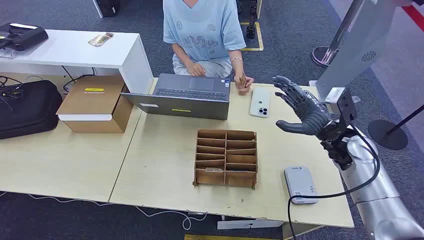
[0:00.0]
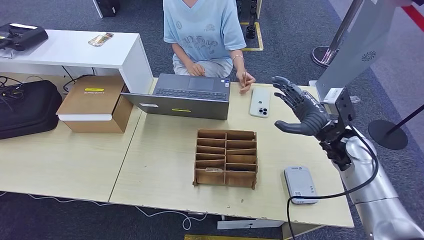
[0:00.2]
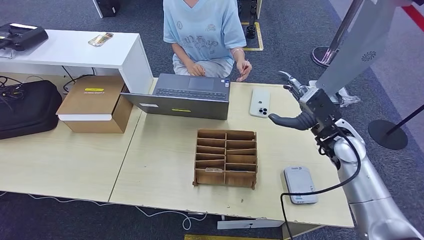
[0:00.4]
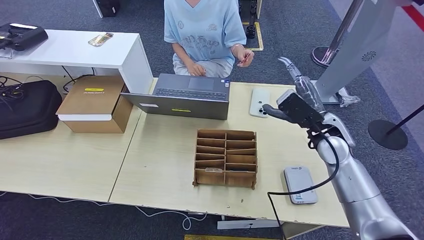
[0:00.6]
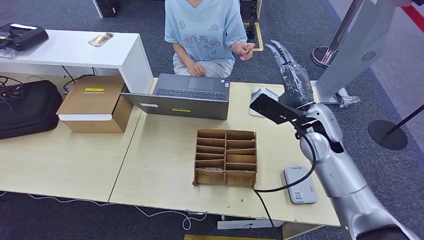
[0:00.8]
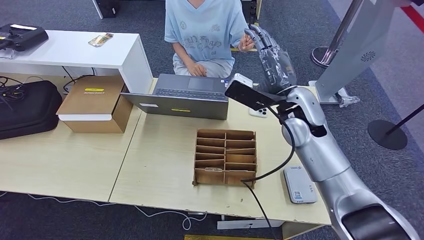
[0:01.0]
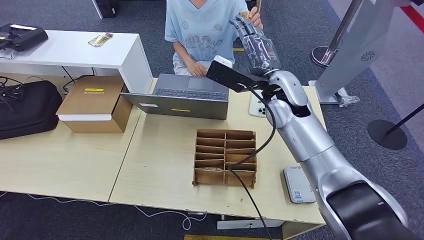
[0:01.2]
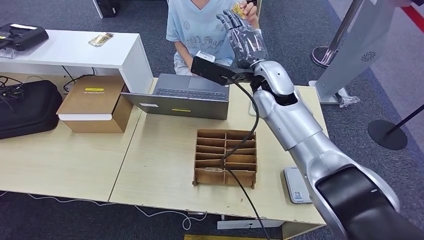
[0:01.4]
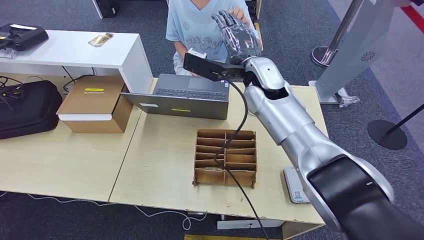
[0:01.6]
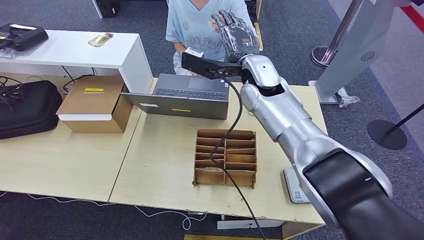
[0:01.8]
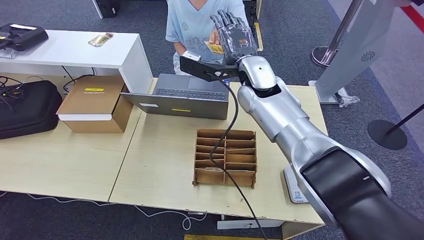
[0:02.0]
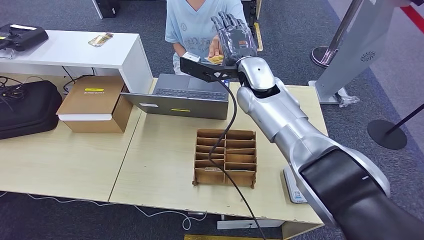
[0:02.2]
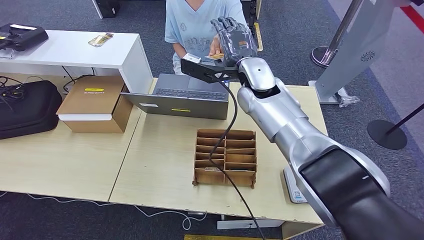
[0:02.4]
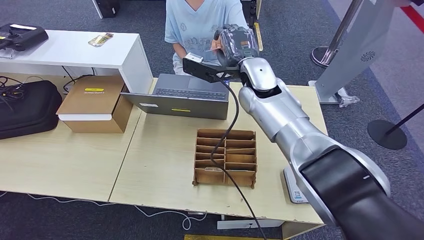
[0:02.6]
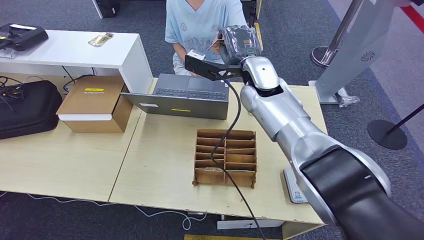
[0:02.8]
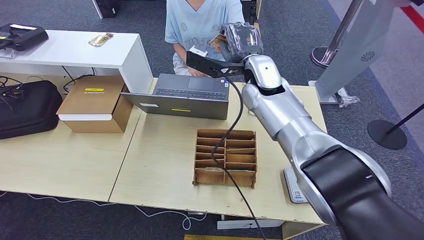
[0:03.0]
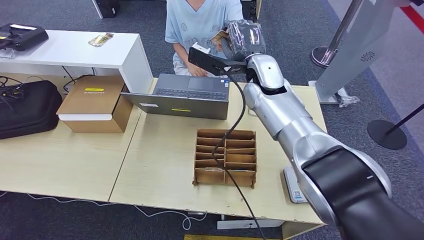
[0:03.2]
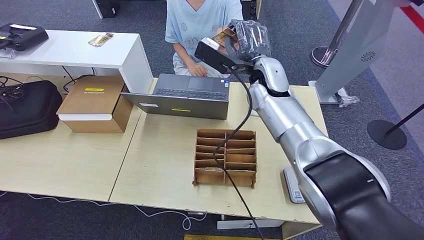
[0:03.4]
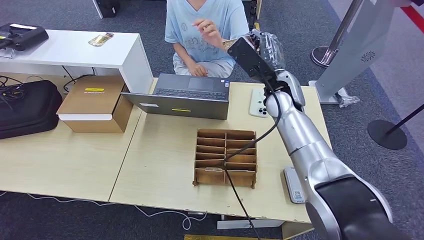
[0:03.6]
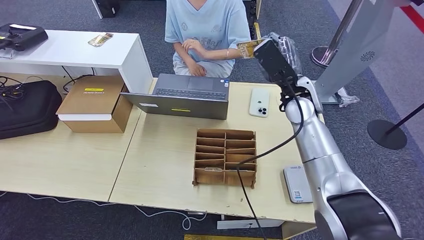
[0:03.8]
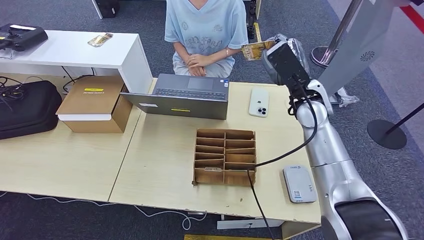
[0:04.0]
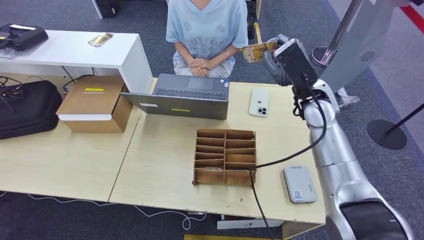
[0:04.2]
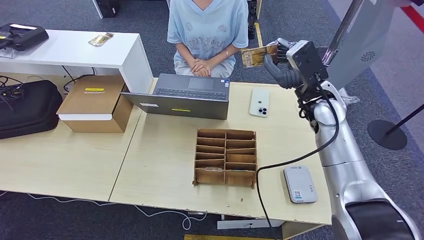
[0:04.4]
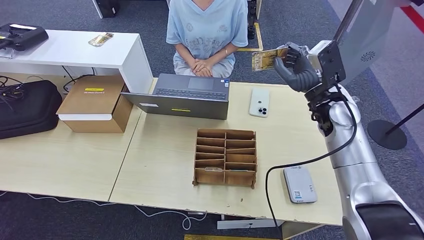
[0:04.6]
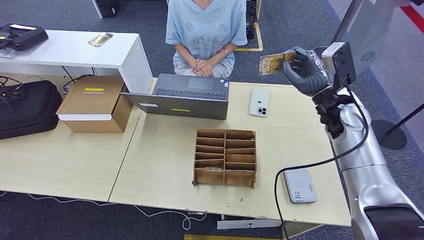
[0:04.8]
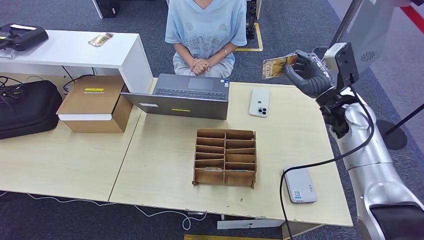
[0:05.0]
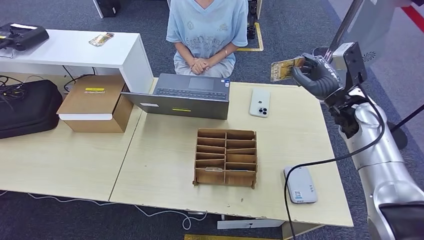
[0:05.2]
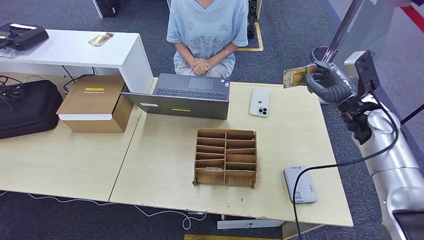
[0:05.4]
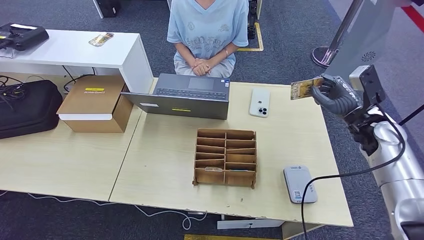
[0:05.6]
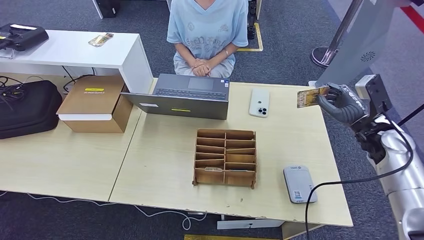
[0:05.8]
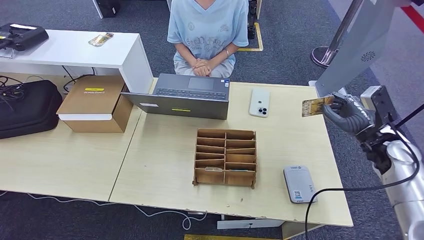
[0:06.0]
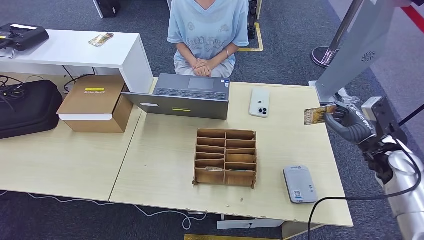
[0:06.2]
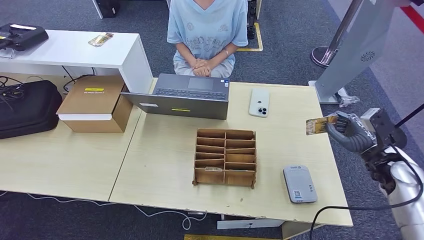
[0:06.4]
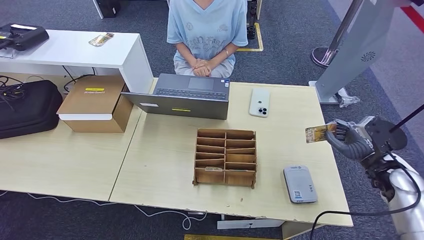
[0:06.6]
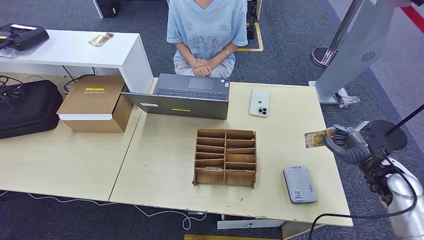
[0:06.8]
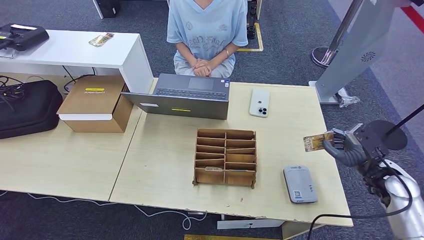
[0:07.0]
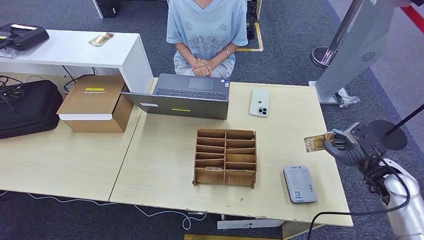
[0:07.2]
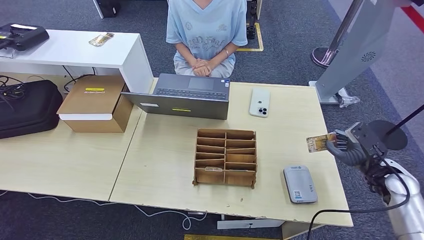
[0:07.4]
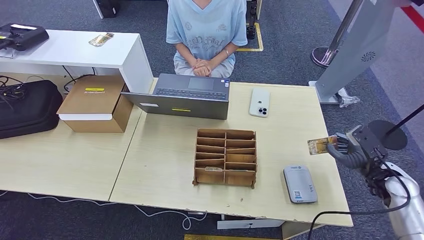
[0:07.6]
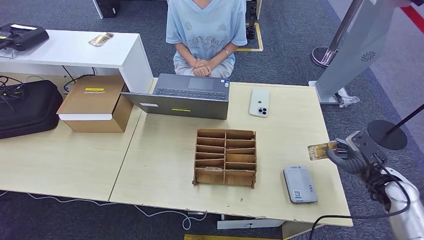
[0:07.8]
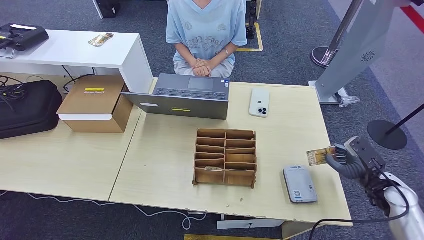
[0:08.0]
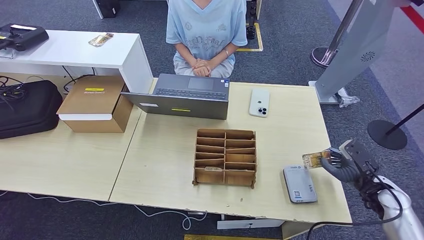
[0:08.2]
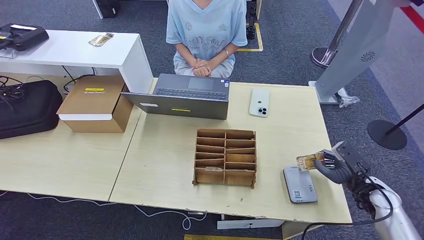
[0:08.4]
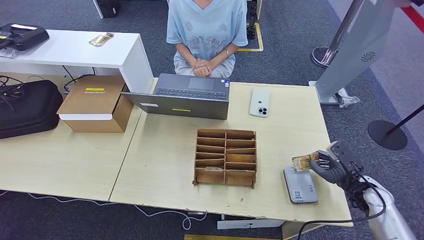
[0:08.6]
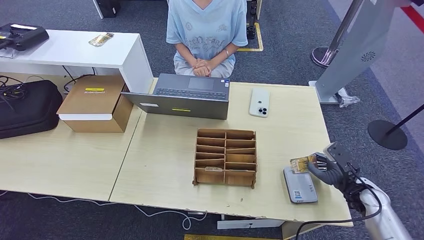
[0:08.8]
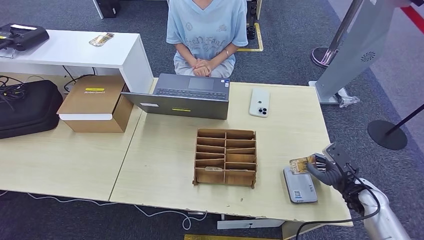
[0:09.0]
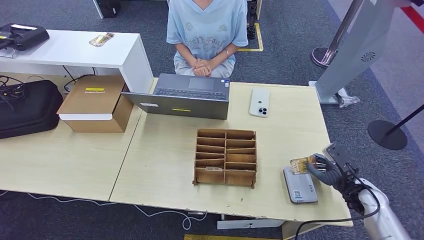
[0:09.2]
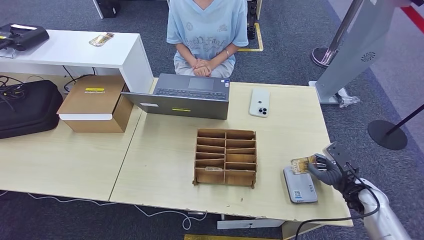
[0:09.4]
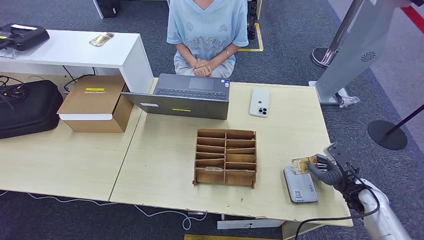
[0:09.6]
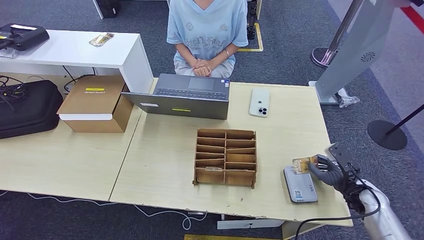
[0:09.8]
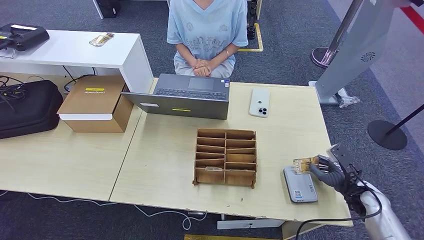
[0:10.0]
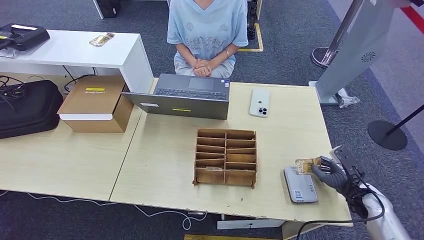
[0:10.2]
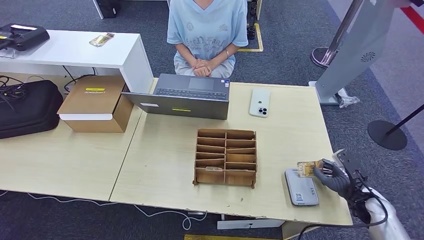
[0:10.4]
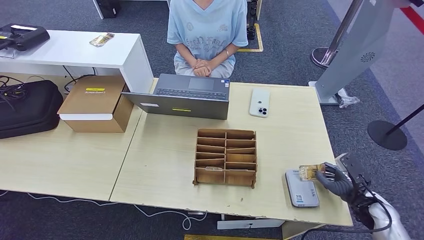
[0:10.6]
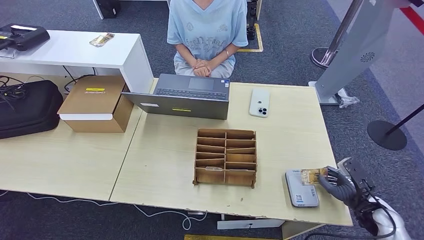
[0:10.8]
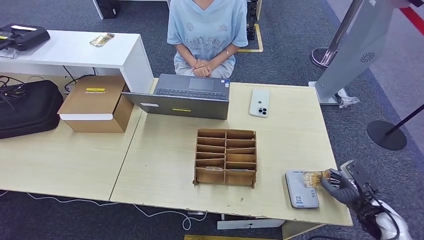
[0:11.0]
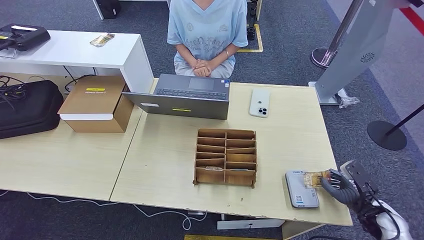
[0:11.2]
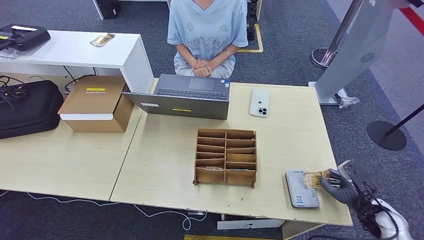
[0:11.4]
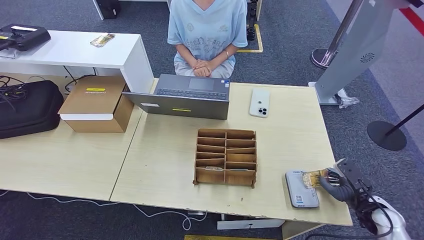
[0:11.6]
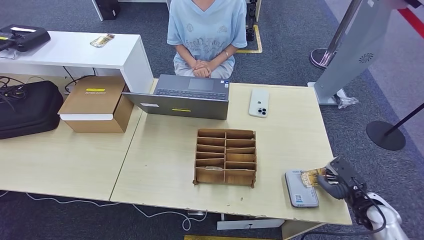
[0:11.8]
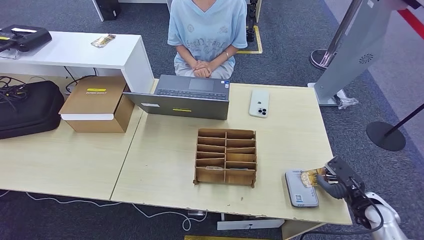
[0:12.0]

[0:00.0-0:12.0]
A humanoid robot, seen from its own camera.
Step, 0:00.0 to 0:04.0: Take the ID card from the person's hand.
Step, 0:04.2 to 0:09.6: Place the ID card on the card reader.
0:01.6 to 0:03.0: The hands stay close to where they were, moving slightly.
0:03.0 to 0:04.4: The right hand shifts about 15 cm to the right.
0:04.4 to 0:06.0: The right hand moves to the right, backward and downward, about 20 cm.
0:06.0 to 0:07.6: The right hand moves downward and backward, roughly 10 cm.
0:07.6 to 0:09.0: The right hand travels downward by approximately 5 cm.
0:09.0 to 0:10.4: The hands make only small movements.
0:10.4 to 0:12.0: The hands make only small movements.

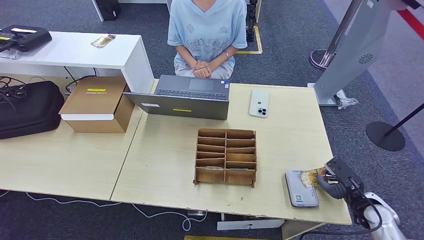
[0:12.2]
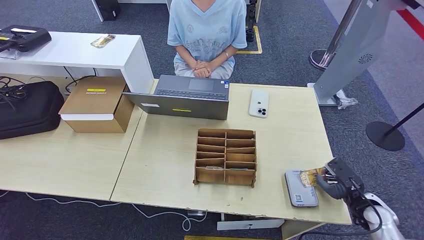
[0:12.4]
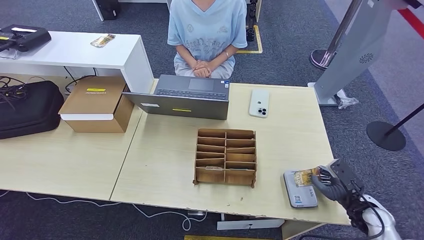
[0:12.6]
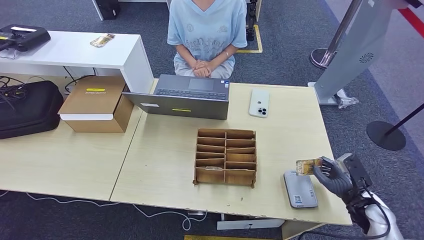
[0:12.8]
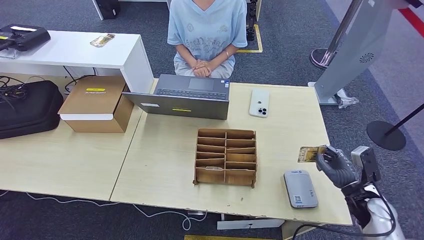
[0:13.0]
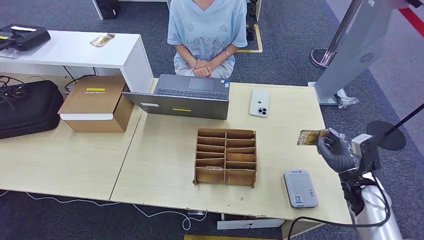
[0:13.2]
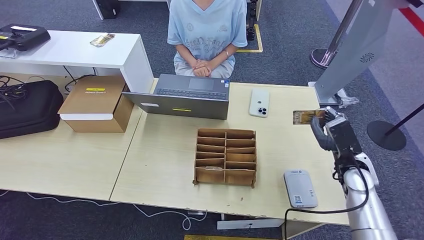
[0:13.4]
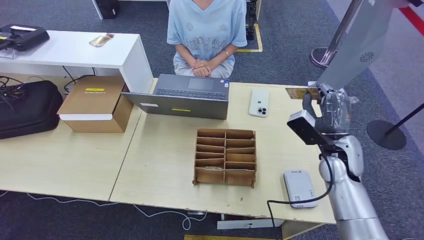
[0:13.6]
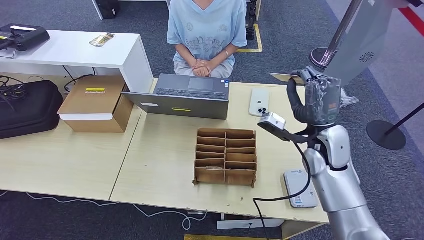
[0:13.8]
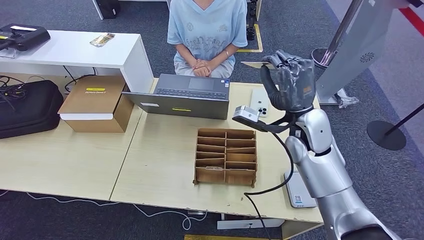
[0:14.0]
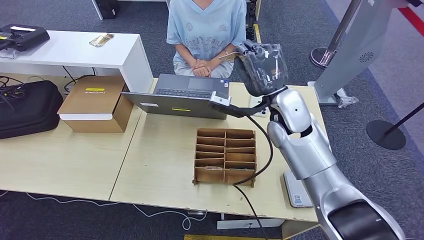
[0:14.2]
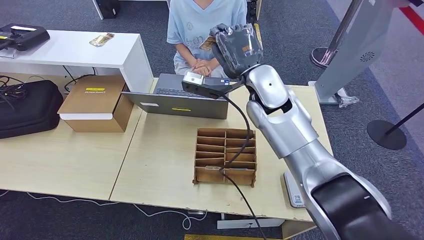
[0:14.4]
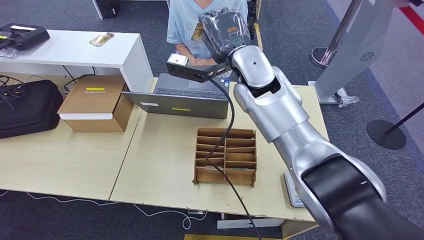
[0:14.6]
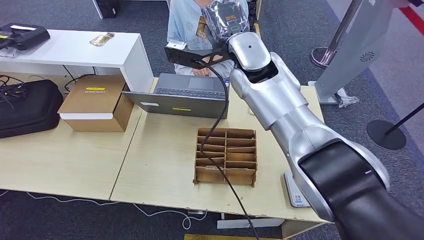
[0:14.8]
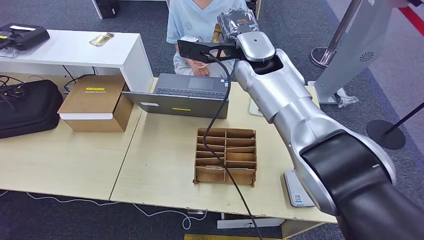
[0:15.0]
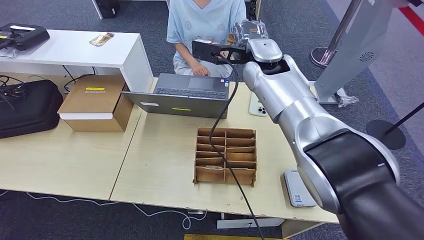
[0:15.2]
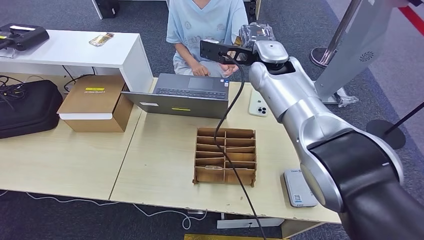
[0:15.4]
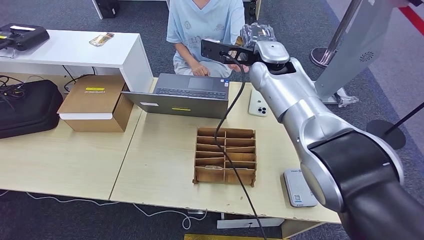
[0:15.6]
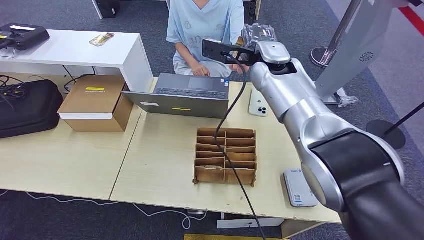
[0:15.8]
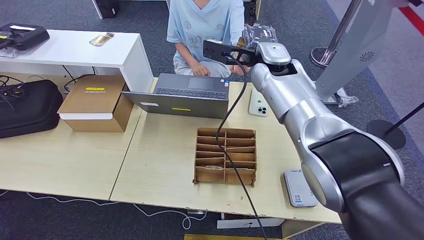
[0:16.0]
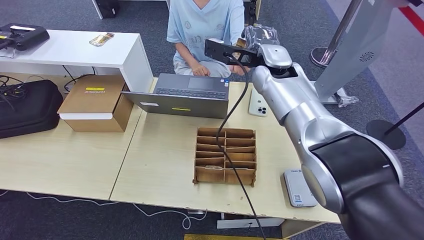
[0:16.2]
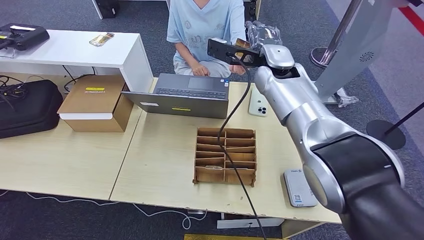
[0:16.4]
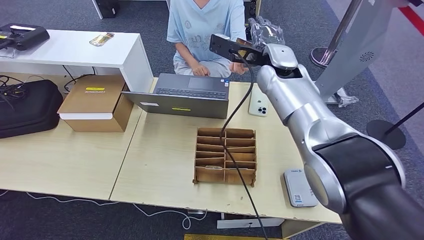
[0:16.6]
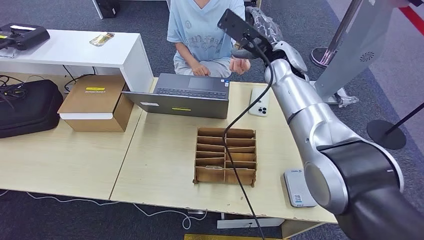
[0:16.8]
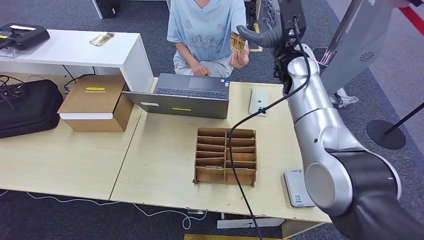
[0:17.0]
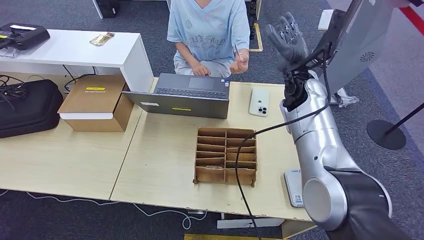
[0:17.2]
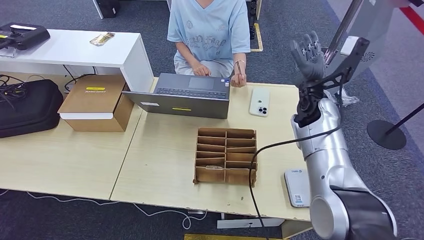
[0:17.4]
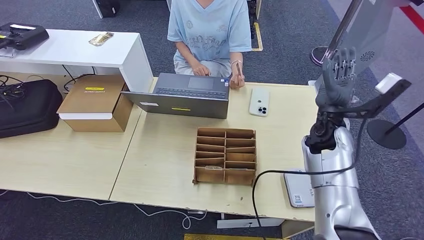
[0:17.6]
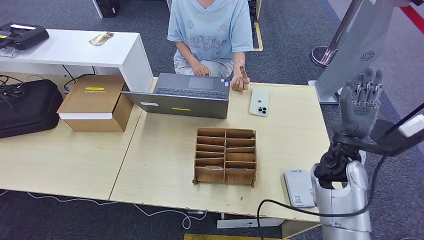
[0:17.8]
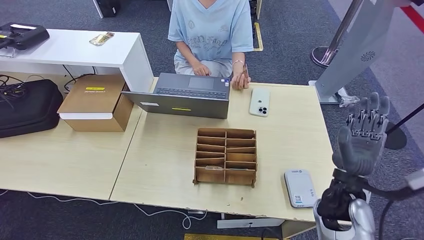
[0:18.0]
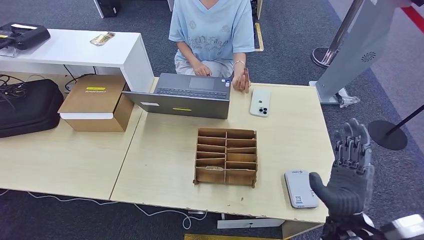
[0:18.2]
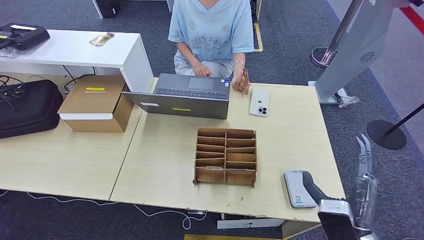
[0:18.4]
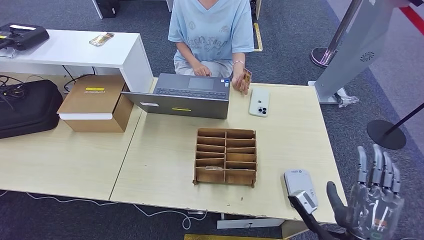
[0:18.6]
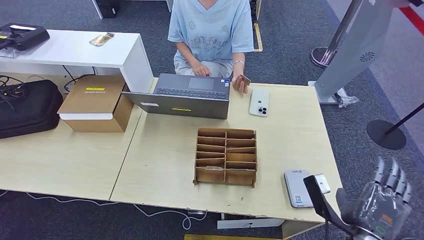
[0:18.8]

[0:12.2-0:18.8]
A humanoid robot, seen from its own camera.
Step, 0:12.2 to 0:16.4: Hand the ID card to the person.
0:12.2 to 0:13.8: The right hand goes approximately 25 cm to the left, upward and forward.
0:13.8 to 0:15.4: The right hand shifts about 25 cm upward, forward and to the left.
0:15.4 to 0:17.2: The right hand is displaced to the right and downward by about 10 cm.
0:17.2 to 0:18.8: The right hand travels backward and downward by approximately 40 cm.
